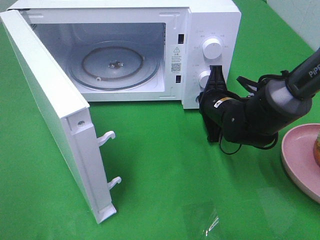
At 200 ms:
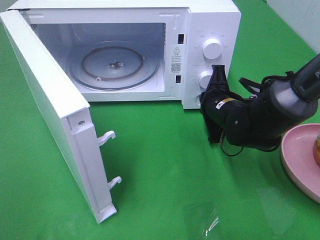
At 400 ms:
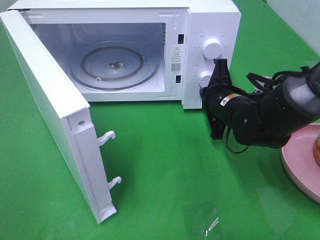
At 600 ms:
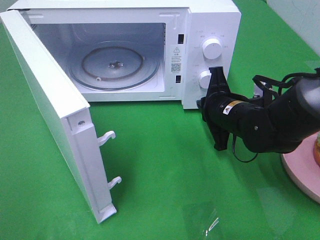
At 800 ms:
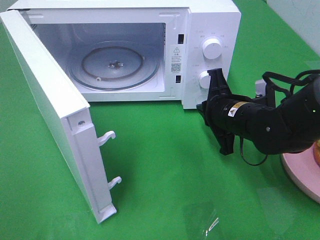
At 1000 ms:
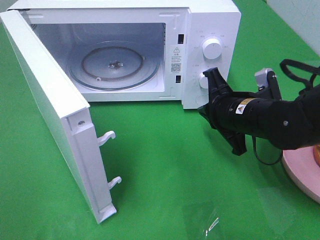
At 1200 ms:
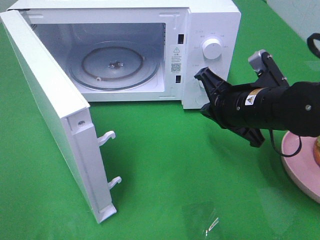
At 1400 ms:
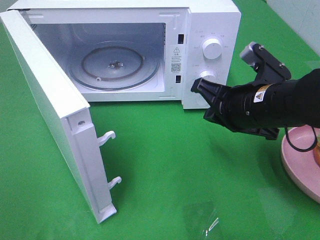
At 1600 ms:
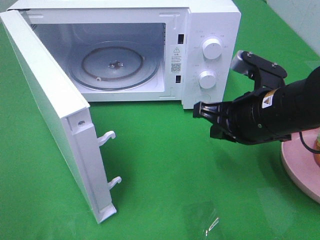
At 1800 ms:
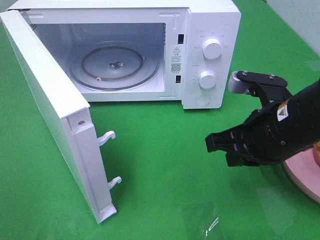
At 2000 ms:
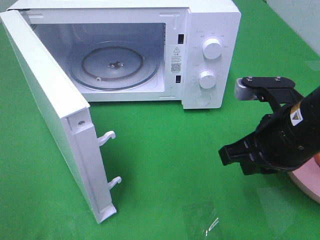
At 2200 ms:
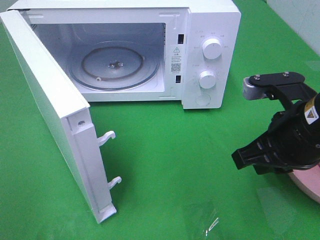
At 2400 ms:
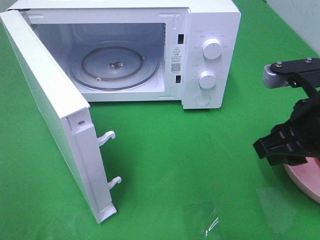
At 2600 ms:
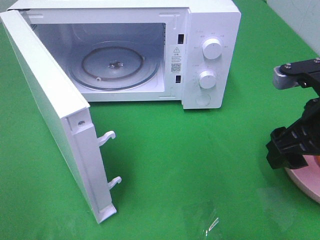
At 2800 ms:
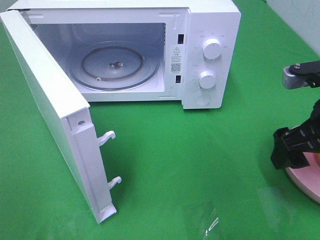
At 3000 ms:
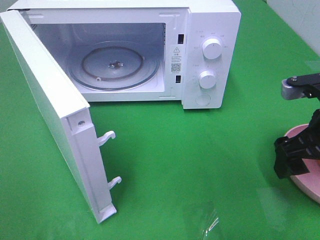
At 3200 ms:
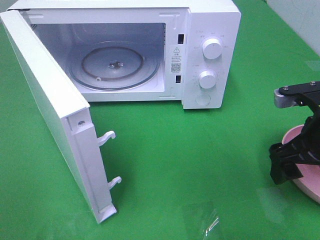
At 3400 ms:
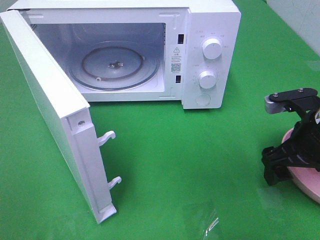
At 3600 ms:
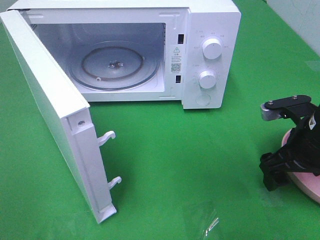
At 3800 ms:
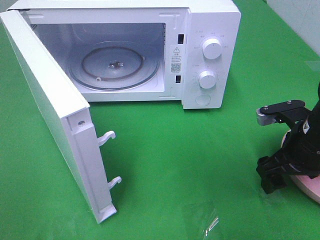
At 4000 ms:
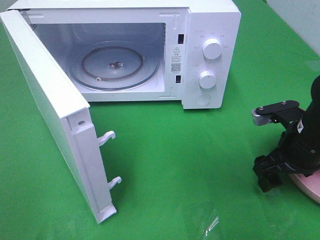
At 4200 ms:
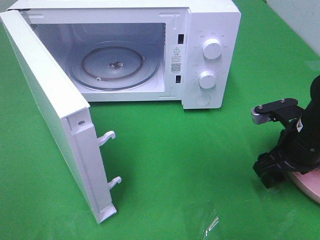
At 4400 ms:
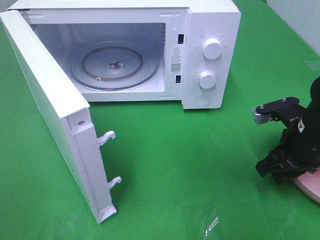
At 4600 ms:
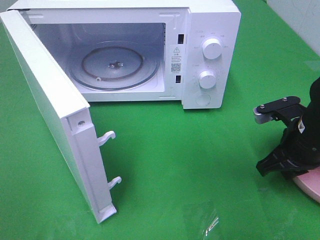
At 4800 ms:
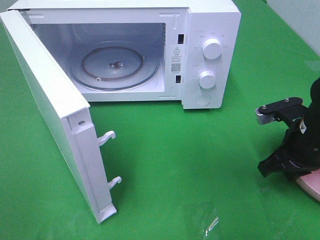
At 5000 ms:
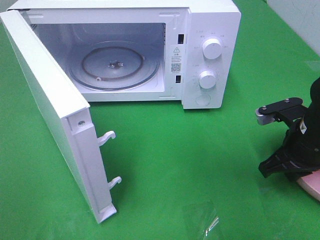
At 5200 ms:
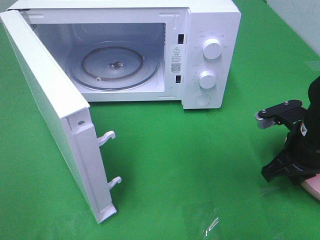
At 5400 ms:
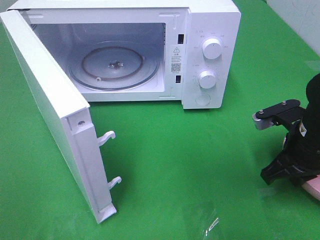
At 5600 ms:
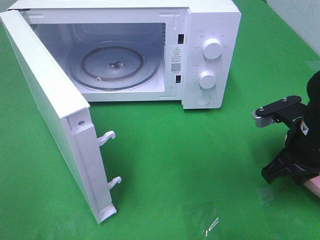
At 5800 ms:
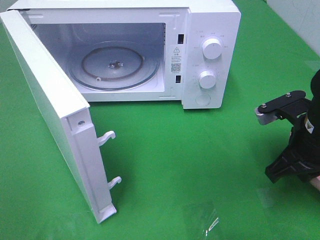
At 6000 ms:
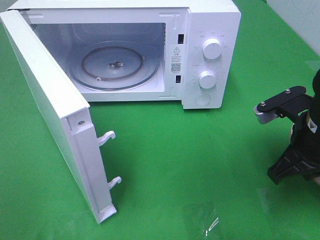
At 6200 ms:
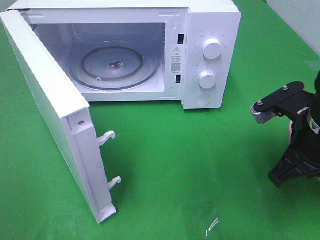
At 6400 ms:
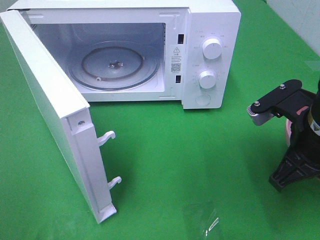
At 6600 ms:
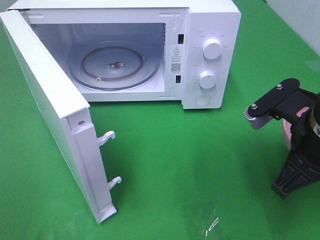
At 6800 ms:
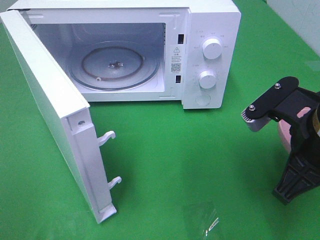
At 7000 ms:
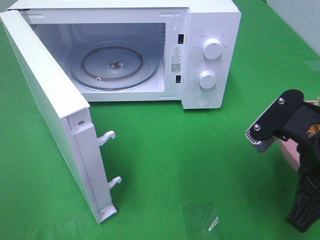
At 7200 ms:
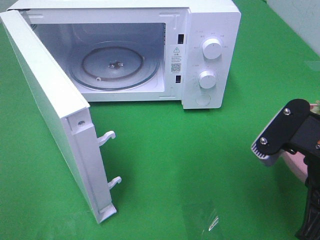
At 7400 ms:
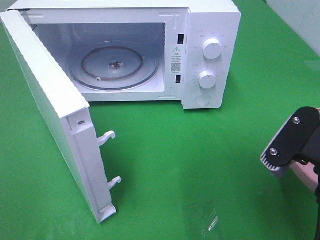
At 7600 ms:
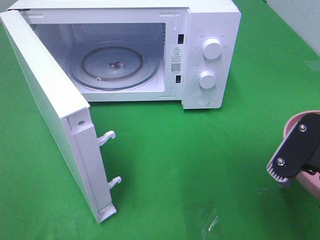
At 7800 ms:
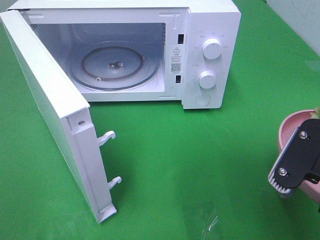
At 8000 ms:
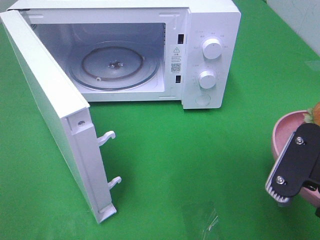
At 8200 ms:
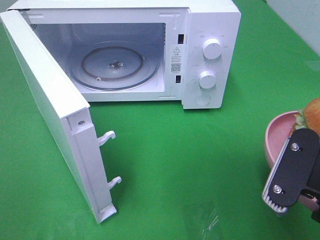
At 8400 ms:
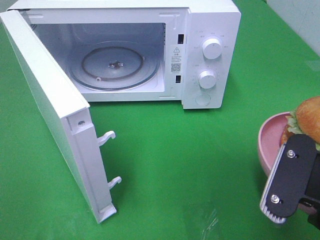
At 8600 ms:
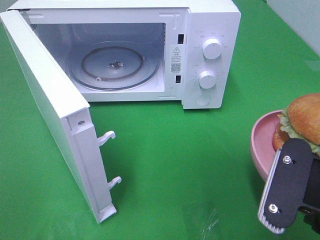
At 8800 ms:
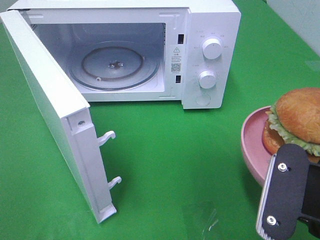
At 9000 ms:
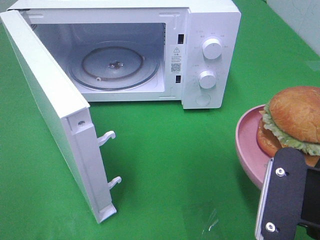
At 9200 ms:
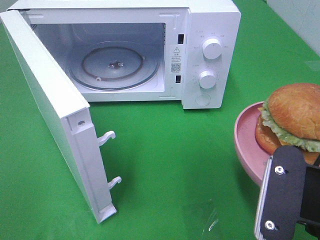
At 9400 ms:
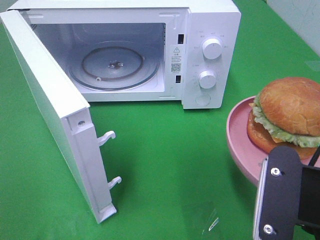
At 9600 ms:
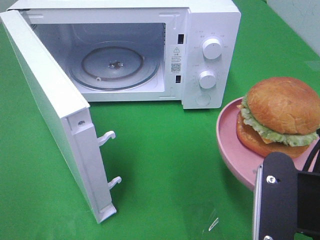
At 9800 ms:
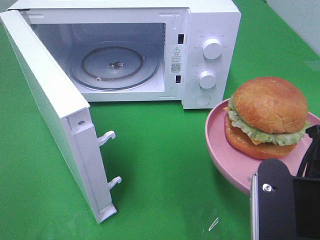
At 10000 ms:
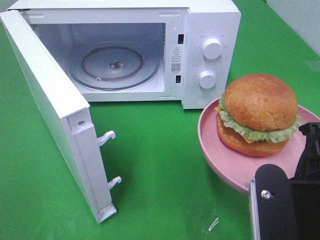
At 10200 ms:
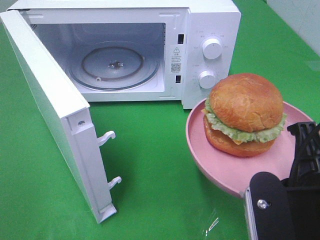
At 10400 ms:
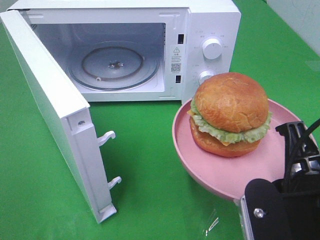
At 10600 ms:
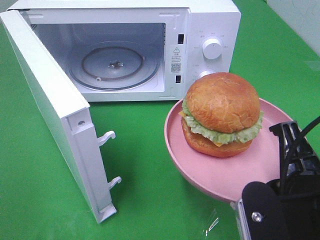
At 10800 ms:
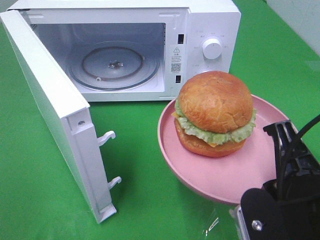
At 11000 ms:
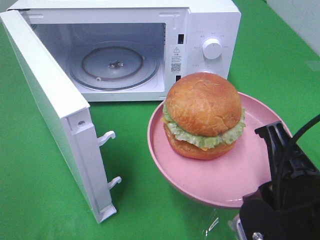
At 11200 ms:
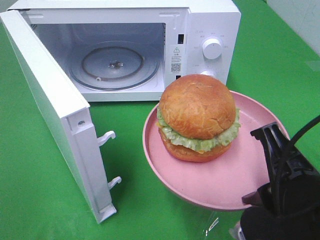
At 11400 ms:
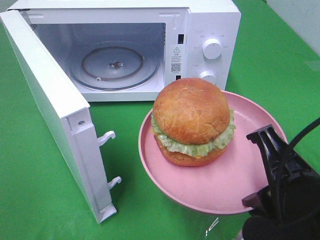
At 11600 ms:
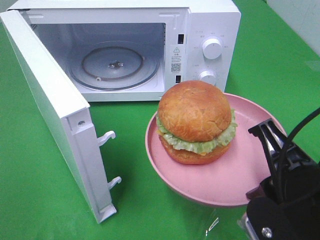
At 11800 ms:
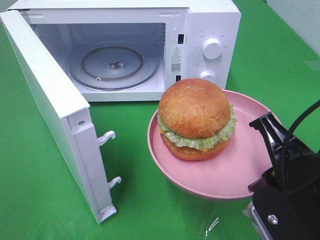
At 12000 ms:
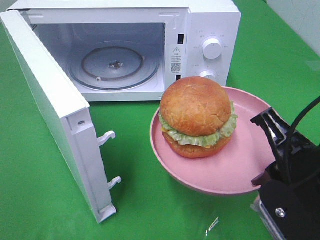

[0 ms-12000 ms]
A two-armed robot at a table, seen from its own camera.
Task of the whole recording: Heat the burger.
Step, 800 ms to 4800 ms: Right hand: grab the plate with the hamburger.
0 ms to 1600 ms: The right gripper moves backward and upward, roughly 15 cm.
1600 ms to 3000 ms: The right gripper goes roughly 10 cm to the right, and opens.
3000 ms to 4400 ms: The right gripper shifts approximately 5 cm downward, and closes up.
4400 ms to 6000 ms: The right gripper moves approximately 5 cm, and closes up.
6000 ms to 7600 ms: The right gripper moves backward, approximately 10 cm.

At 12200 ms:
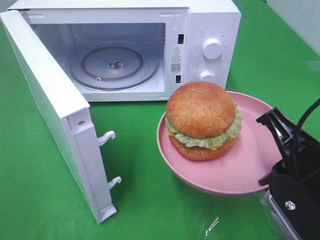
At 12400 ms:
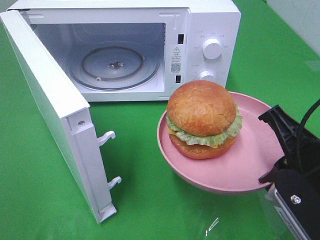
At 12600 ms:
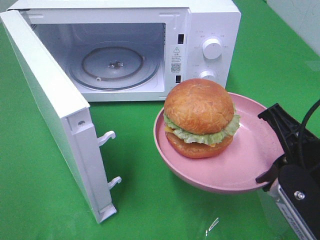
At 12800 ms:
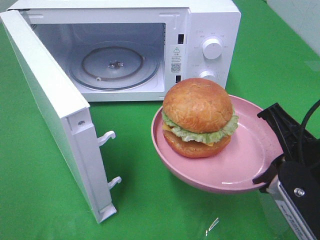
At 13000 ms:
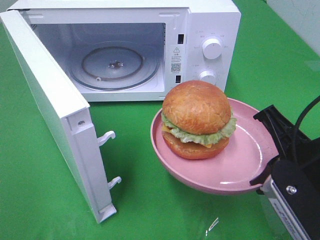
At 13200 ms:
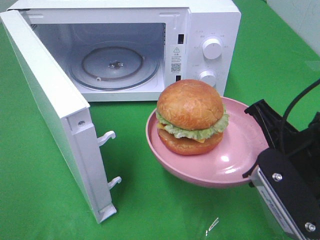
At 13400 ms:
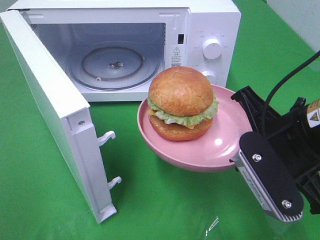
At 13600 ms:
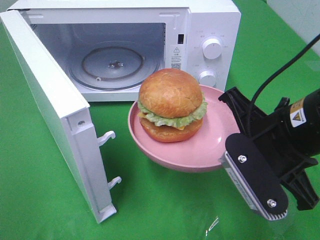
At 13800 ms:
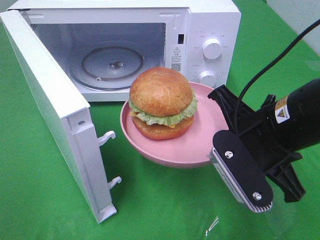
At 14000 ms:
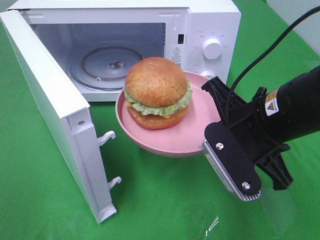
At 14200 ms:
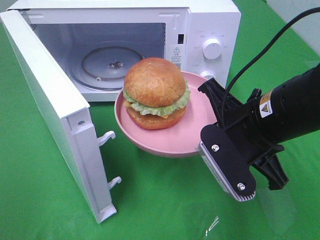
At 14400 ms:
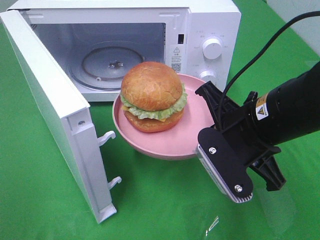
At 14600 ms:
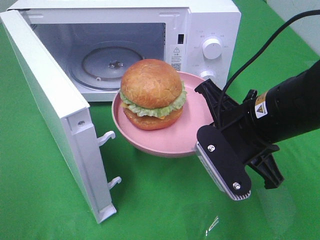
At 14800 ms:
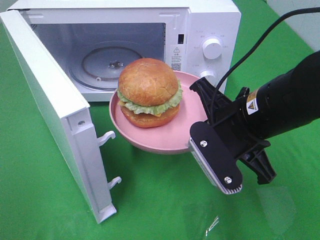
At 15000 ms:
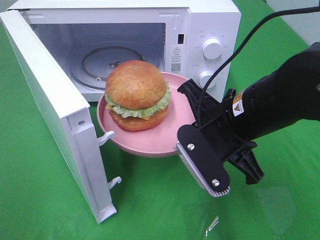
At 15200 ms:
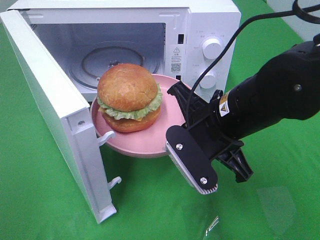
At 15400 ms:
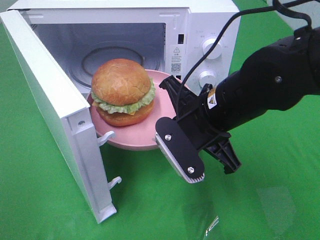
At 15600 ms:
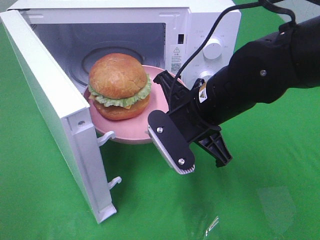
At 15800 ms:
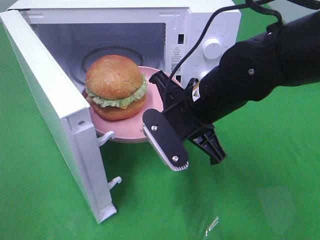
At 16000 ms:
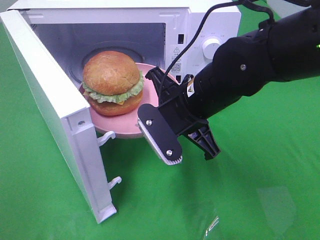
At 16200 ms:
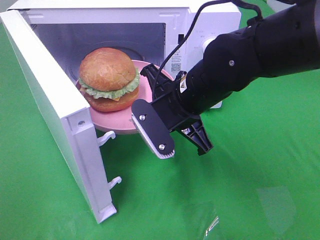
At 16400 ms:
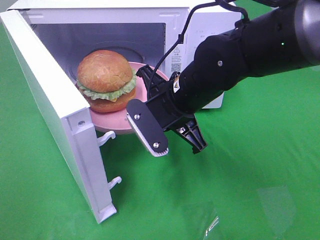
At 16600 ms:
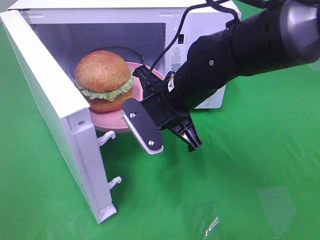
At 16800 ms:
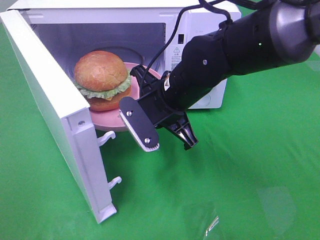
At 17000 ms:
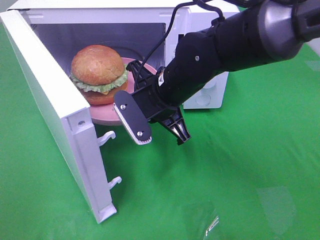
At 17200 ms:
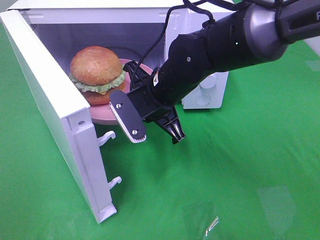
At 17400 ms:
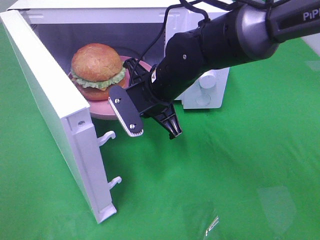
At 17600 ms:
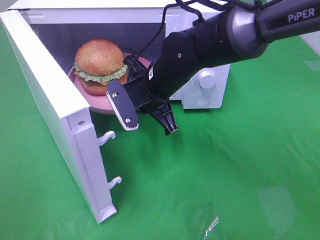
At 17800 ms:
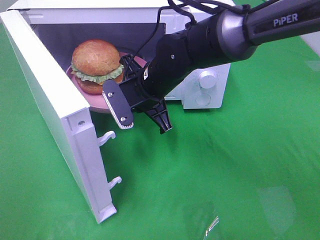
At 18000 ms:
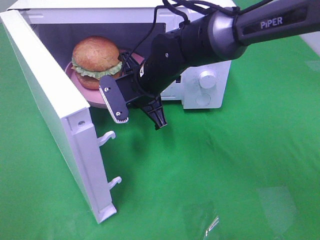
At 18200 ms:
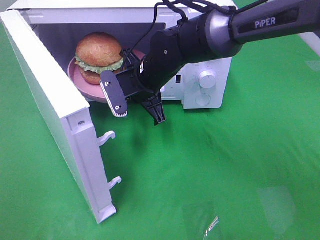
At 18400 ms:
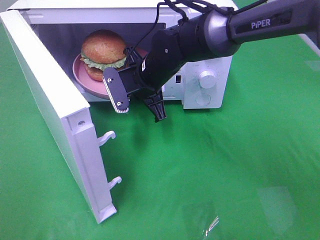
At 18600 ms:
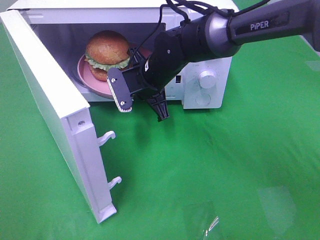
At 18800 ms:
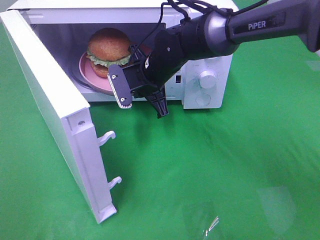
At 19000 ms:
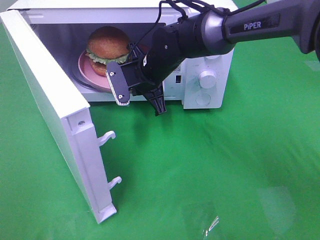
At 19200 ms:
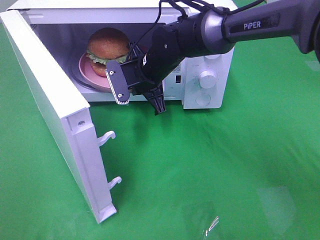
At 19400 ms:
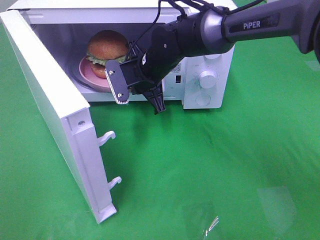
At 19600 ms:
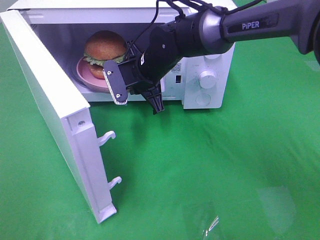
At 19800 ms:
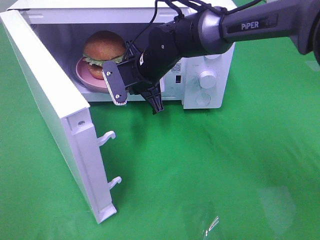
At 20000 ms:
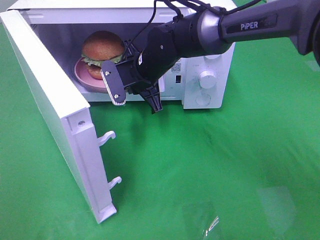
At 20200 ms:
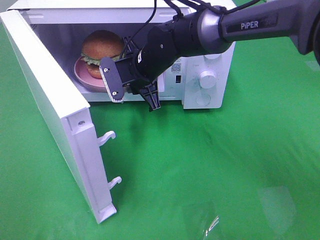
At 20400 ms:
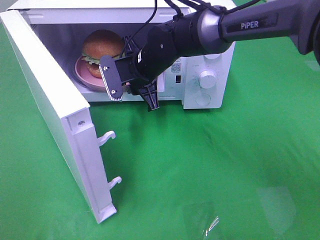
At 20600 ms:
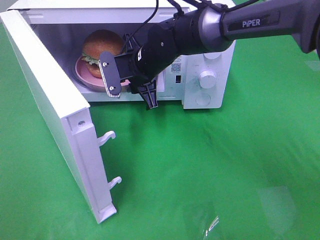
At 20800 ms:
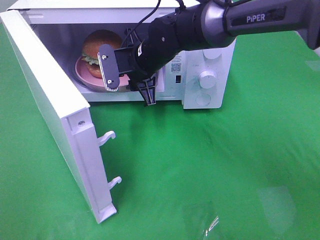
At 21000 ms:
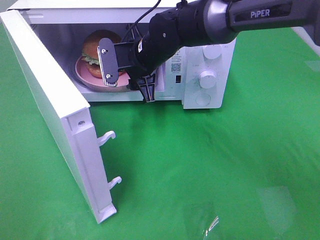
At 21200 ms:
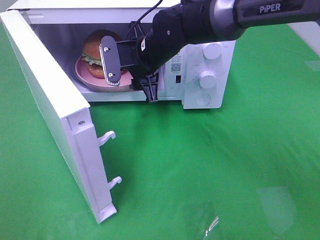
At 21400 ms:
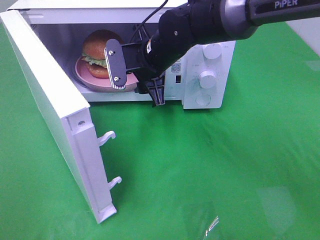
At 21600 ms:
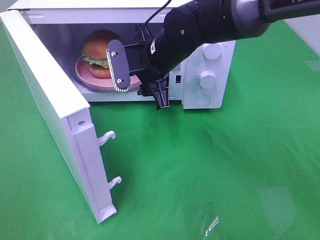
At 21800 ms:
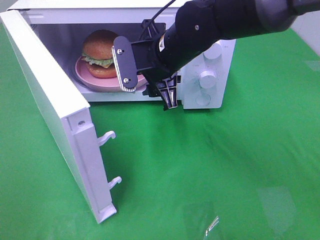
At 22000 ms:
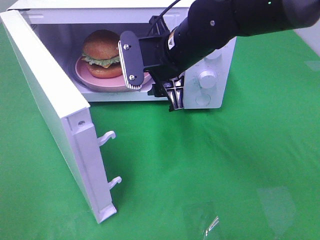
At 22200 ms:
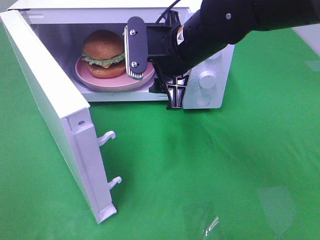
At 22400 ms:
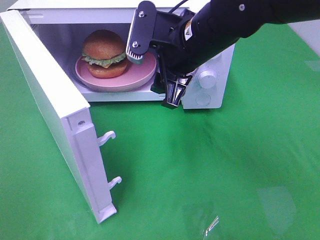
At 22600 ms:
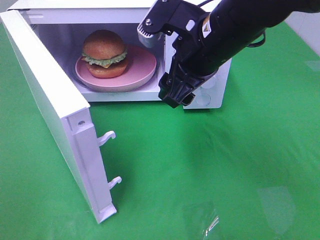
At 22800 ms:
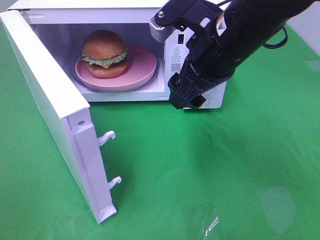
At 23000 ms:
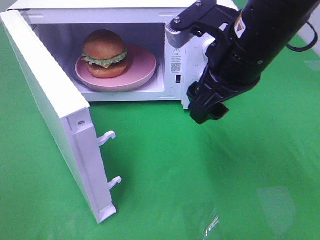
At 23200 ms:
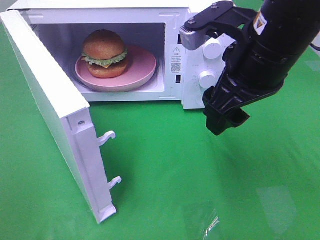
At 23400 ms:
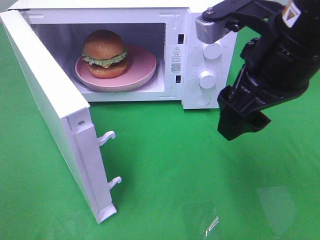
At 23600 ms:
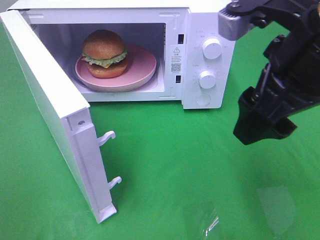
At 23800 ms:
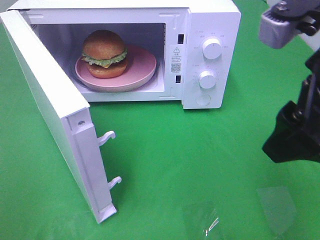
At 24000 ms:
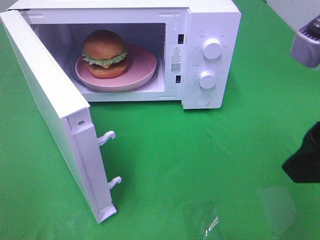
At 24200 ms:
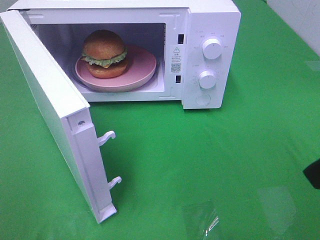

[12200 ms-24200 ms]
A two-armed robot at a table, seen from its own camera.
Task of the whole recording: Heat the burger.
Step, 12200 ms to 20800 ms: Right hand: place the plate in the microwave.
12200 ms to 13800 ms: The right gripper travels forward by approximately 5 cm.
13800 ms to 15200 ms: The right gripper moves approximately 5 cm.
15200 ms to 16600 ms: The right gripper is displaced forward and to the left by about 10 cm.
16600 ms to 18200 ms: The right gripper is displaced forward by some 10 cm.
18200 ms to 19800 ms: The grippers move only a little.
19800 ms to 21200 ms: The right gripper opens up.
21200 ms to 22600 ms: The right gripper shifts roughly 15 cm backward, to the right and upward.
22600 ms to 24200 ms: The right gripper travels backward and to the right by approximately 20 cm.
